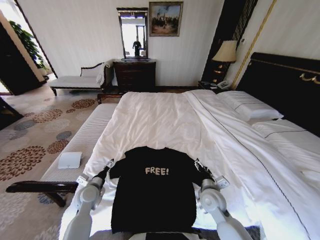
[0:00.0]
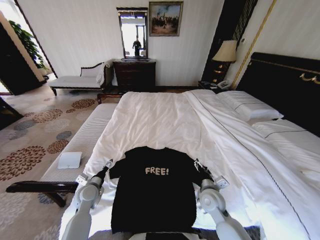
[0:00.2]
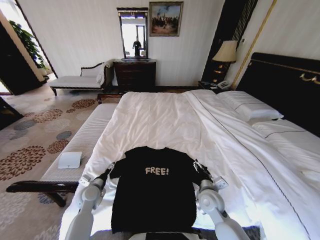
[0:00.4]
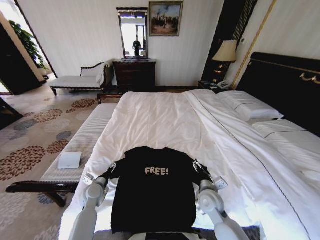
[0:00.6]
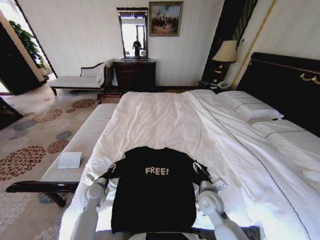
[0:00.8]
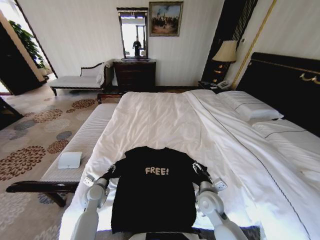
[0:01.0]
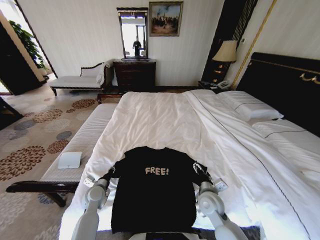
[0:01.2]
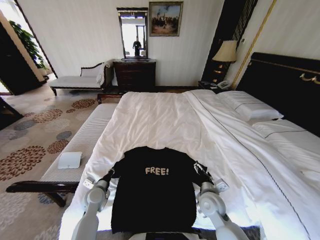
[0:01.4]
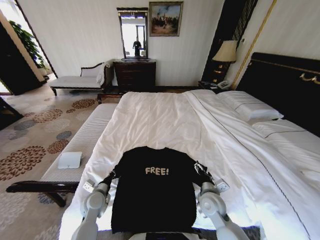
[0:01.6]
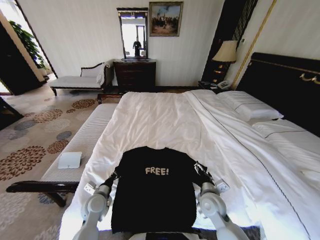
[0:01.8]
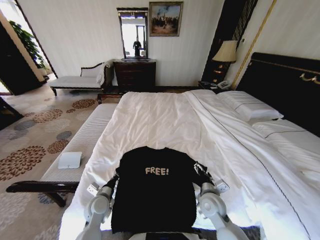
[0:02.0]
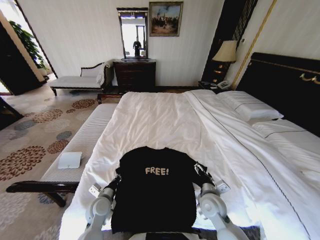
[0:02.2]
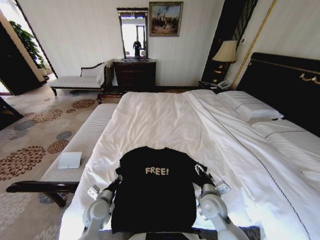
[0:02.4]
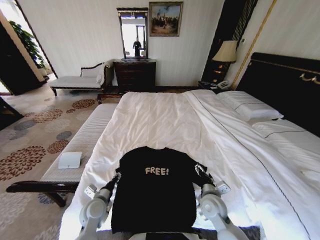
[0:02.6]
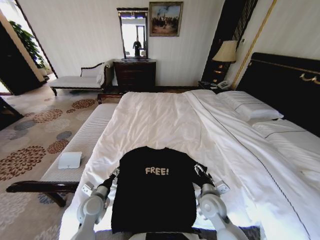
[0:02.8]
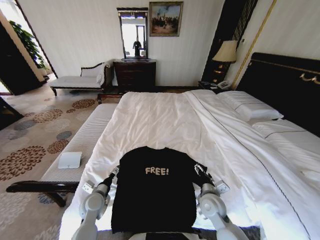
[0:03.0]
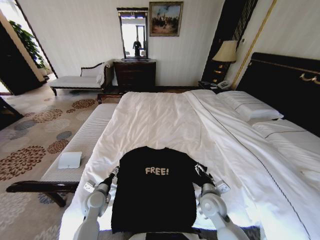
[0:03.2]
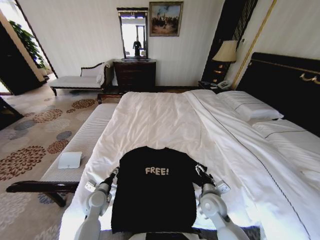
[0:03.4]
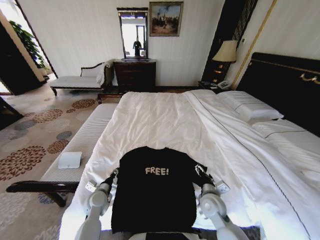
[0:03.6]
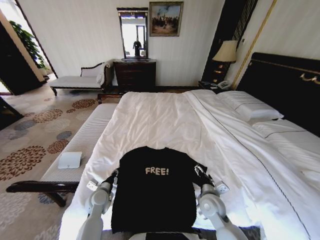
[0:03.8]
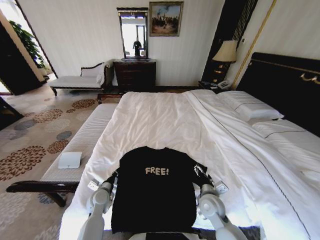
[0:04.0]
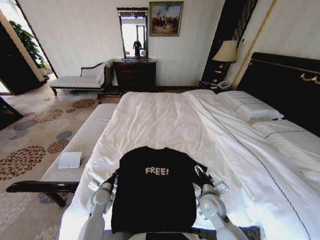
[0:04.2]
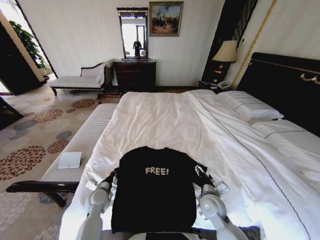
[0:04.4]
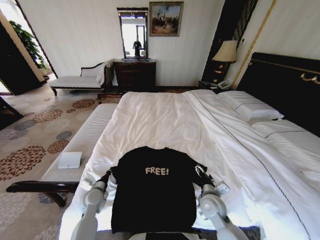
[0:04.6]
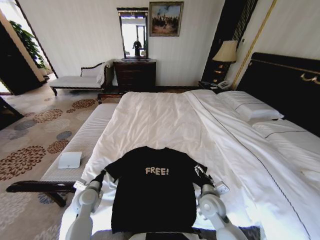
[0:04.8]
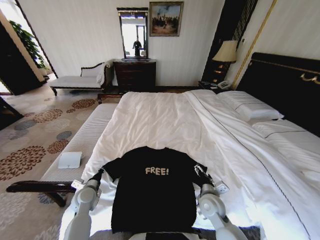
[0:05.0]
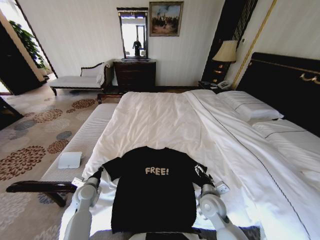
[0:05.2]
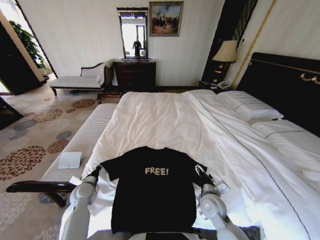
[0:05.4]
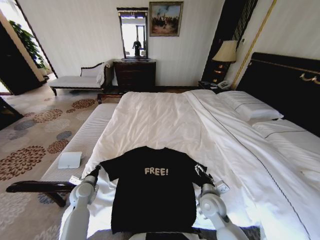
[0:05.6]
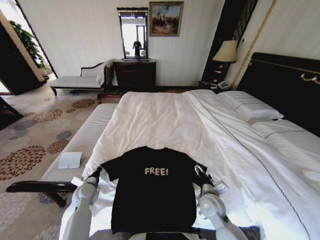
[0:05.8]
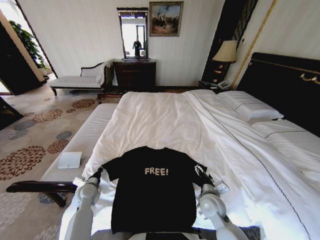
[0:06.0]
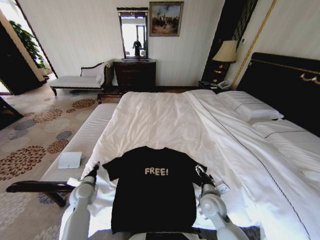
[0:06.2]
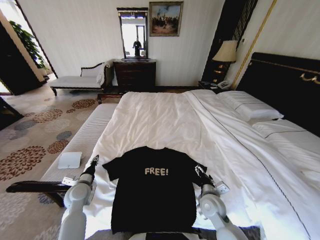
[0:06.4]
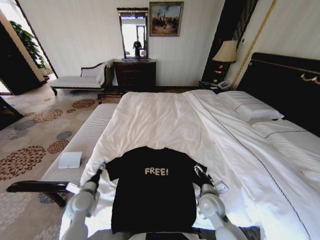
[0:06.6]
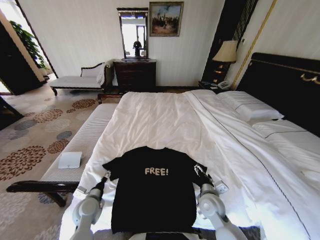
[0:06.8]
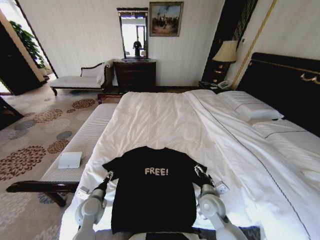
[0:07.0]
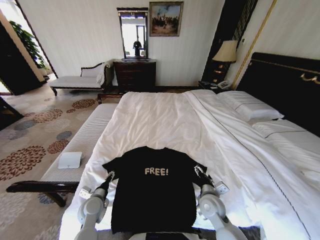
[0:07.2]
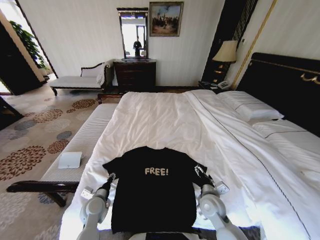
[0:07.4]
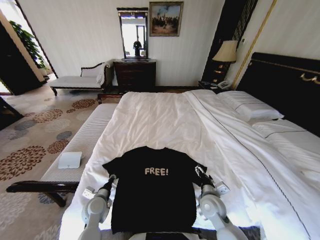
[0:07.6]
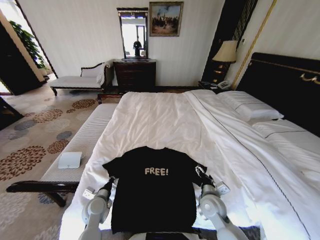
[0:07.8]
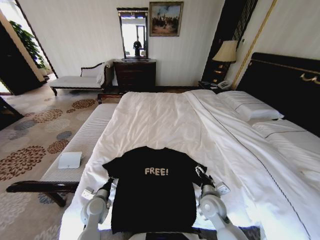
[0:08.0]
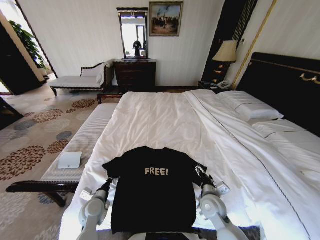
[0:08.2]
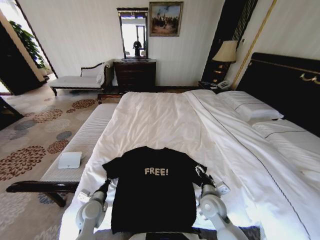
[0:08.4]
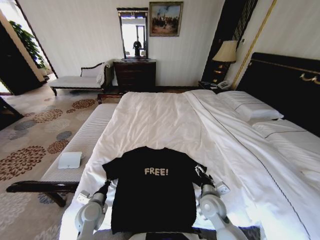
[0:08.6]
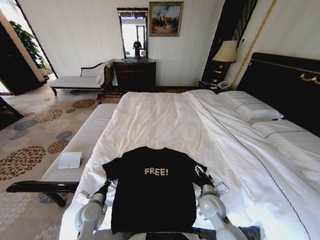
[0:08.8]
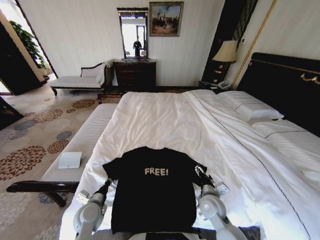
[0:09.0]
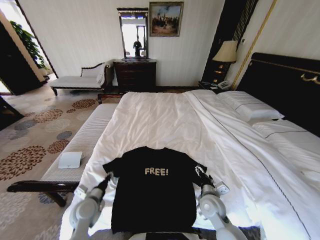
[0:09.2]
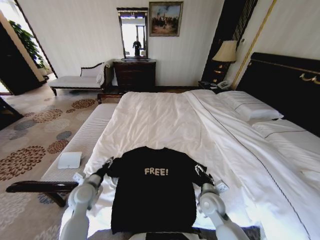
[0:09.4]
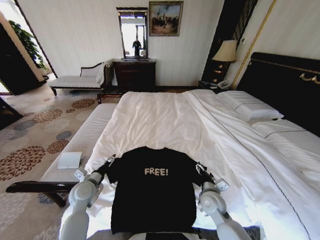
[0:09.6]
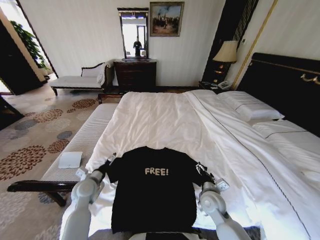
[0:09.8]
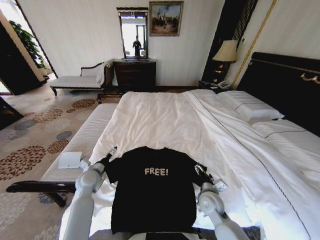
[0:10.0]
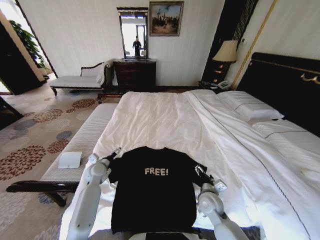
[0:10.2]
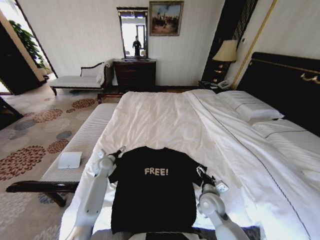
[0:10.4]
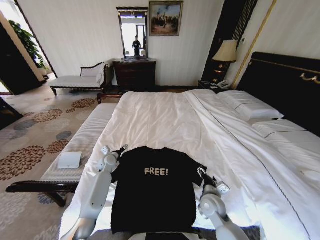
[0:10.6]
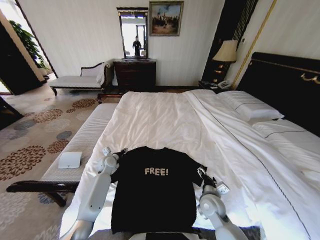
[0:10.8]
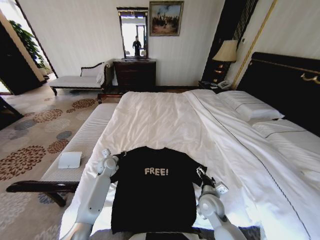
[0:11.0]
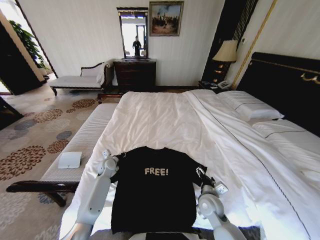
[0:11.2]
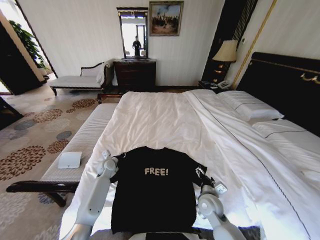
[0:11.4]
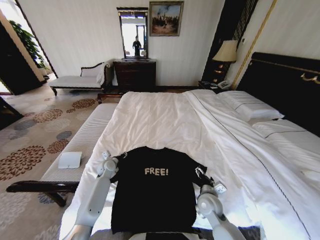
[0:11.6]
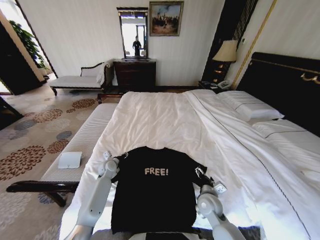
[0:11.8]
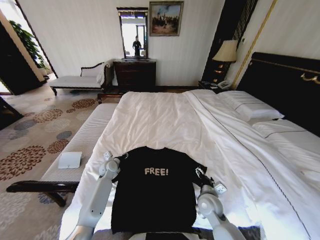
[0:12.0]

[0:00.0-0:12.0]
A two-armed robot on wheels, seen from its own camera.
Task of the whole recording: Fold the clothes on the bed.
0:00.0 to 0:01.6: The left gripper closes its fingers.
0:01.6 to 0:03.0: The left gripper opens.
0:03.0 to 0:04.4: The left gripper closes up.
0:04.4 to 0:06.0: The left gripper is displaced to the left by about 5 cm.
0:06.0 to 0:07.6: The left gripper travels to the right and backward by roughly 10 cm, and opens its fingers.
0:07.6 to 0:09.0: The grippers move only a little.
0:09.0 to 0:10.4: The left gripper is displaced forward by roughly 20 cm, and opens up.
0:10.4 to 0:12.0: The left gripper closes its fingers.

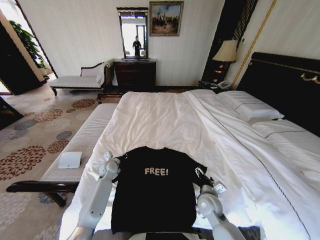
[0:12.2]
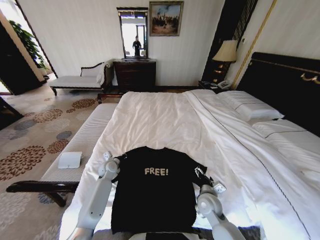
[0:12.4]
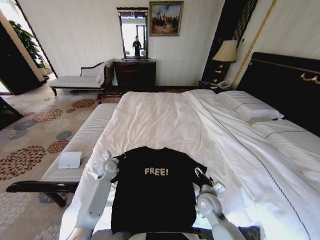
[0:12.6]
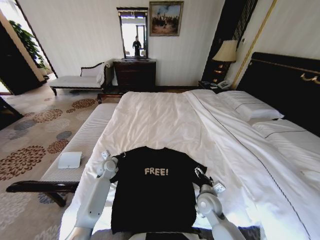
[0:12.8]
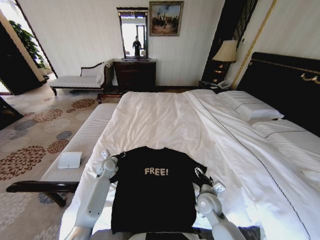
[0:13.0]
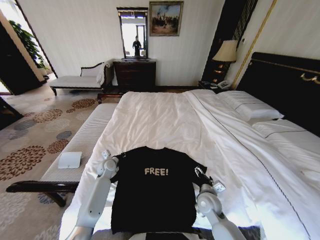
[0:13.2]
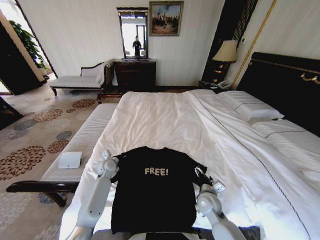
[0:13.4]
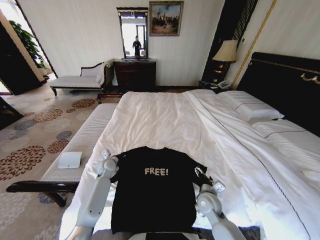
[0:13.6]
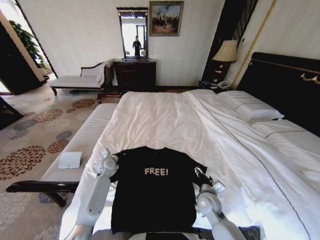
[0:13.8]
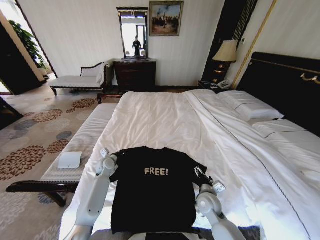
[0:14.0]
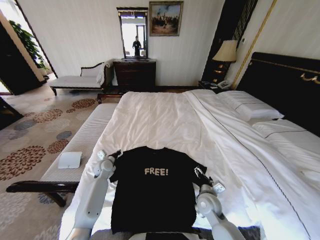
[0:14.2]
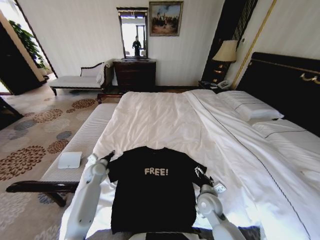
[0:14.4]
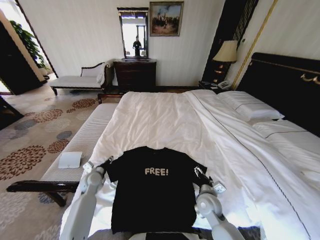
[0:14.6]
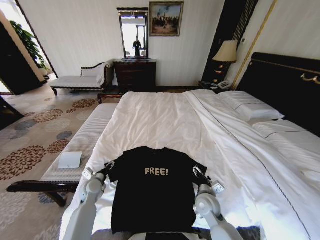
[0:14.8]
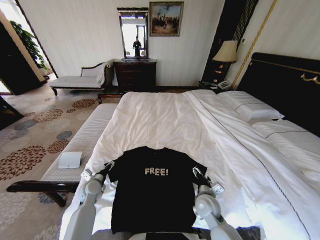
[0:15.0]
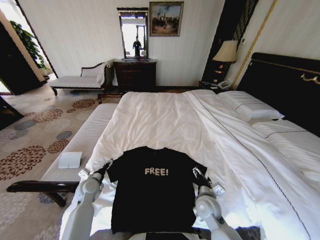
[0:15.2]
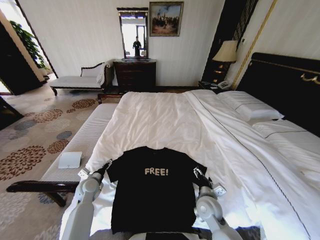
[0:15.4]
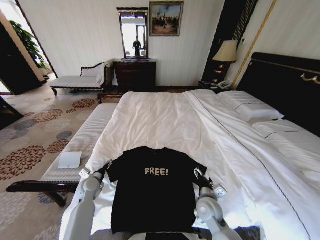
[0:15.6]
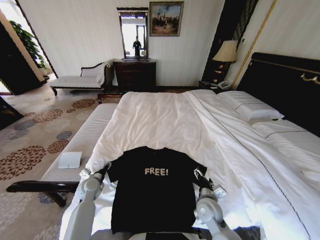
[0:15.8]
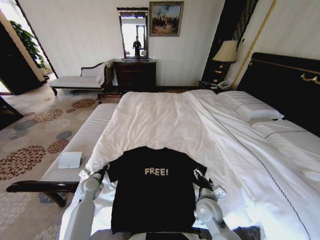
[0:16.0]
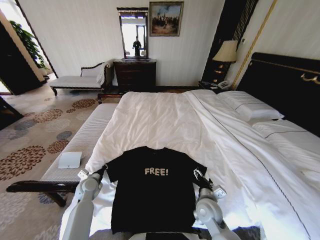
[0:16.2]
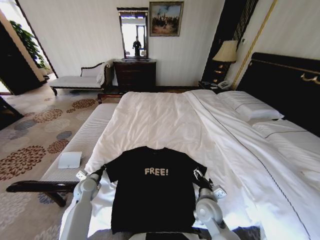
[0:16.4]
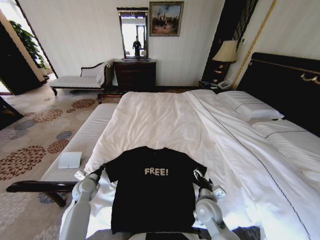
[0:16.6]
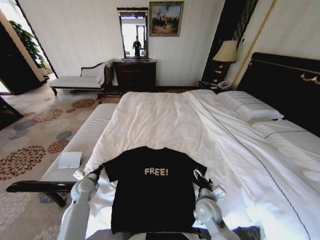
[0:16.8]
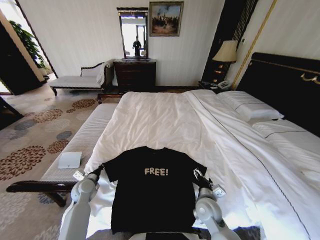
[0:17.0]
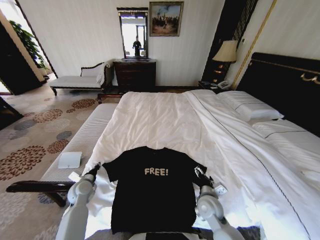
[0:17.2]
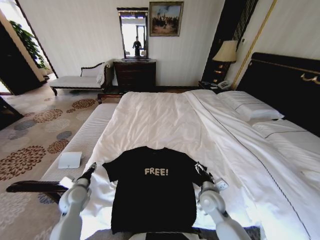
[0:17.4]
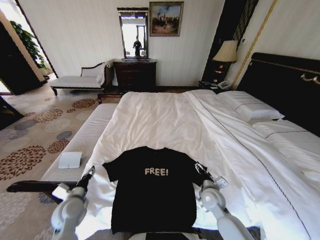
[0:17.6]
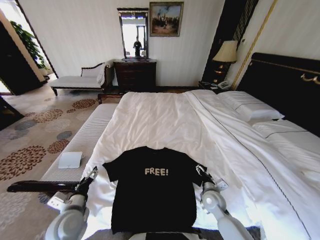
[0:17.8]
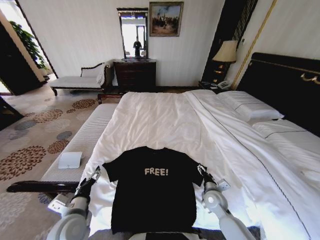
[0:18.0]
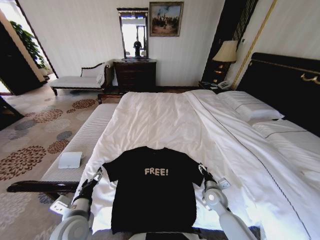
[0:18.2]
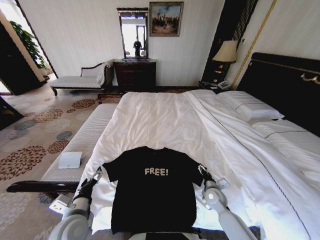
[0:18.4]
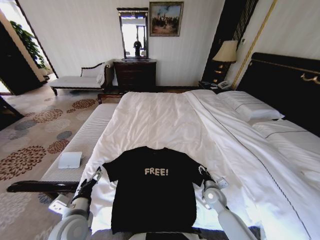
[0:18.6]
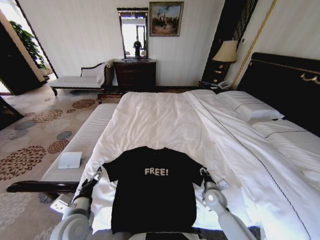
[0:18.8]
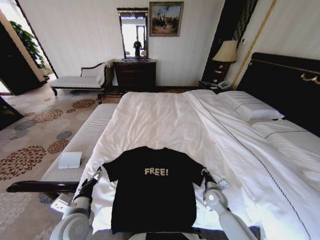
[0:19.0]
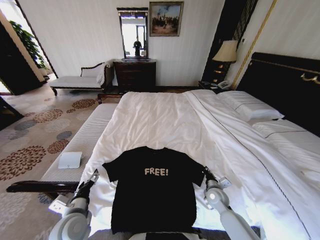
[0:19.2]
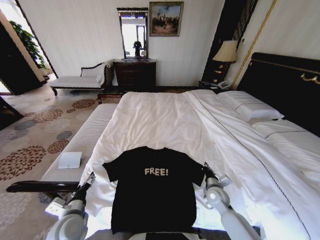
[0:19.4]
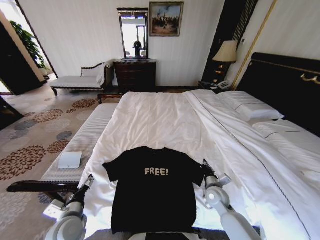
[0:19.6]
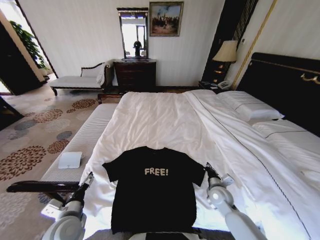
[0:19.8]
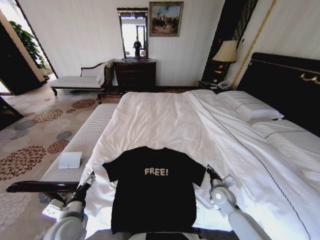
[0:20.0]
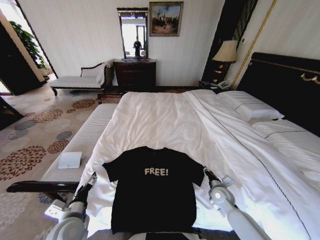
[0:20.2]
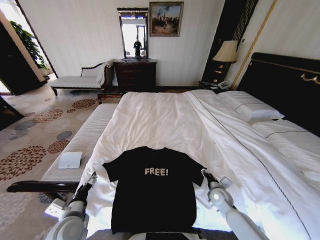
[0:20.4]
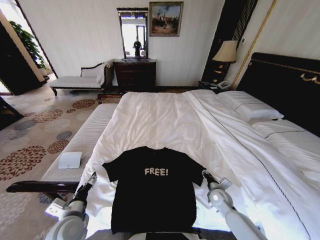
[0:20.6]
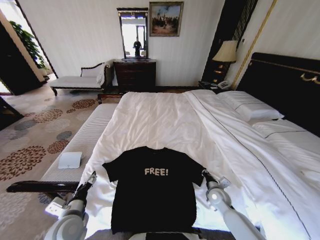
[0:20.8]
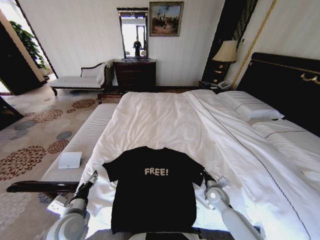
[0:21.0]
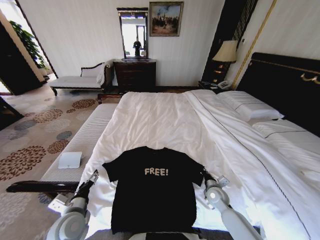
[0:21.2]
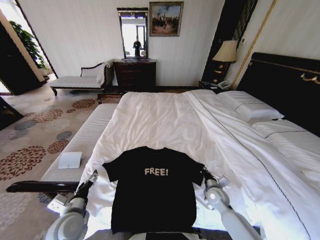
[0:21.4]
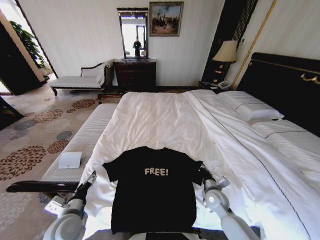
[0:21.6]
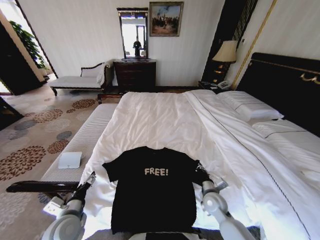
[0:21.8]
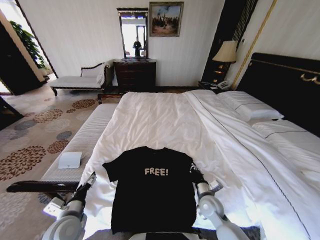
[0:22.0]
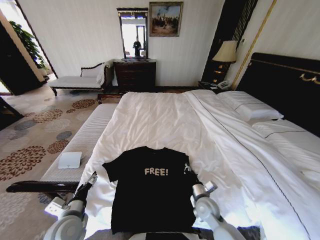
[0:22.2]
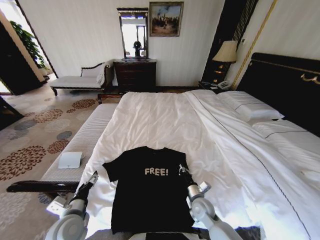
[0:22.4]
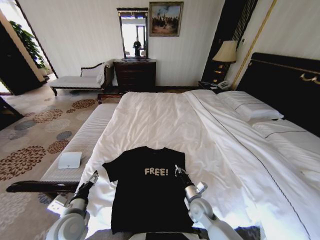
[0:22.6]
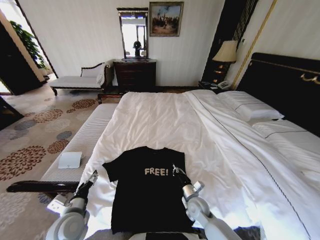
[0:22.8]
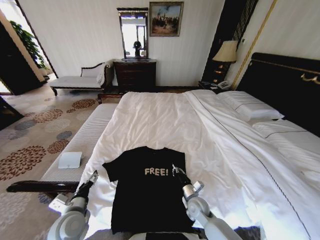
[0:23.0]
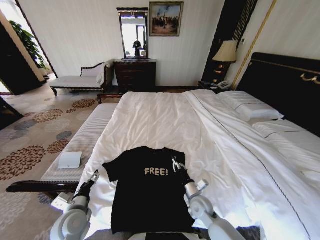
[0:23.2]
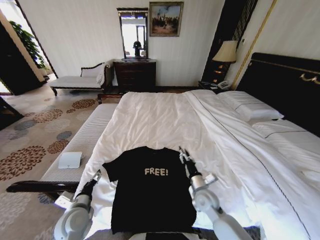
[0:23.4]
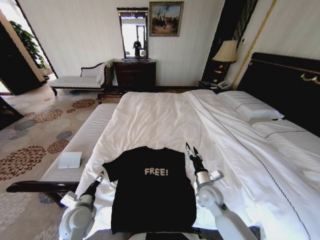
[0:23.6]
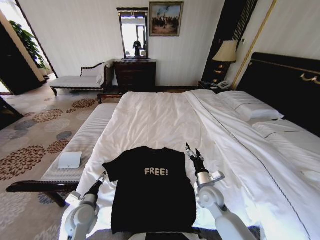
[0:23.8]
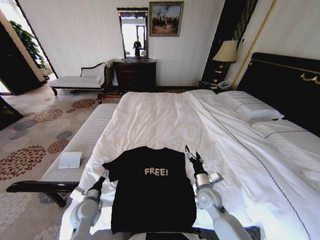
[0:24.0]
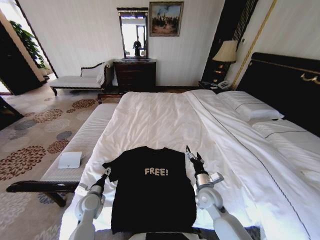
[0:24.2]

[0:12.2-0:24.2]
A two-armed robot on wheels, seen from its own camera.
Task of the whole recording: Fold the clothes on the bed.
0:12.2 to 0:13.8: The grippers move only a little.
0:13.8 to 0:15.2: The left gripper goes about 10 cm backward, and opens up.
0:15.2 to 0:16.6: The left gripper closes.
0:16.6 to 0:18.2: The right gripper goes some 10 cm to the right and forward; the left gripper travels backward, upward and to the right by about 20 cm, and opens up.
0:18.2 to 0:19.8: The right gripper closes its fingers.
0:19.8 to 0:21.2: The right gripper opens, then closes again.
0:21.2 to 0:22.6: The right gripper moves to the left, approximately 10 cm.
0:22.6 to 0:24.2: The right gripper goes about 5 cm upward, and opens its fingers. The left gripper heads downward and forward, covering some 10 cm.
